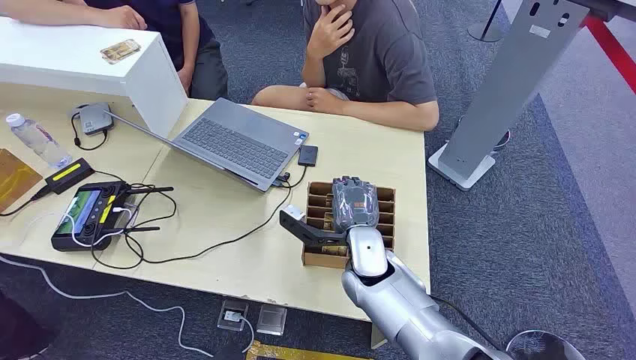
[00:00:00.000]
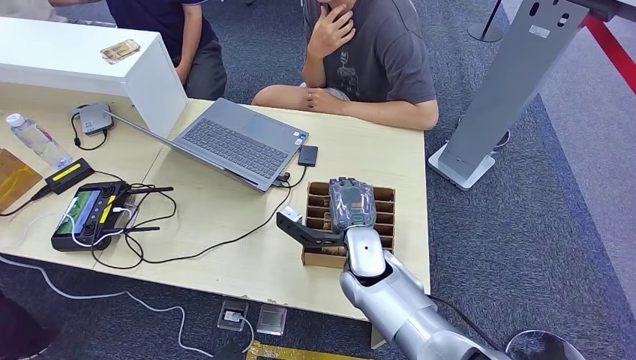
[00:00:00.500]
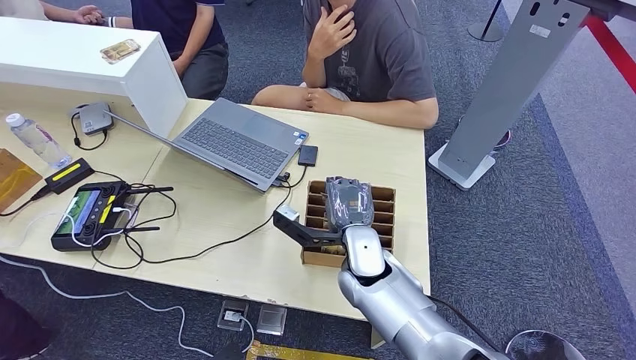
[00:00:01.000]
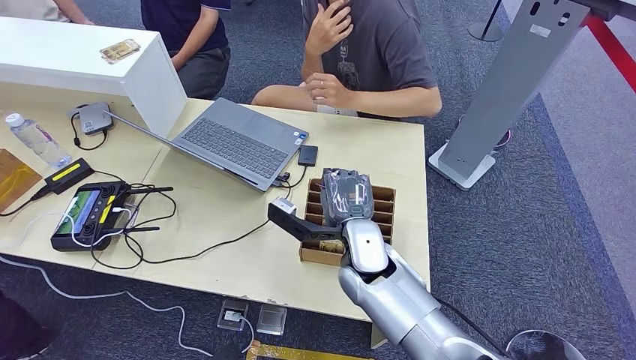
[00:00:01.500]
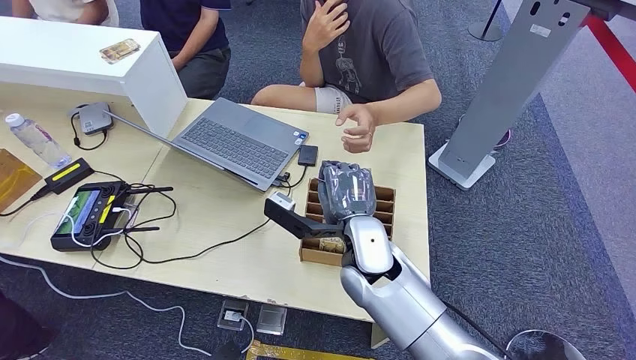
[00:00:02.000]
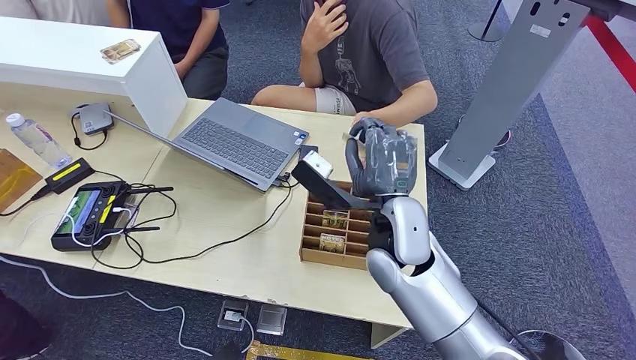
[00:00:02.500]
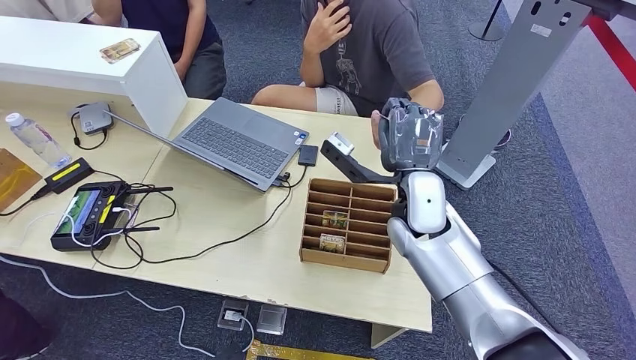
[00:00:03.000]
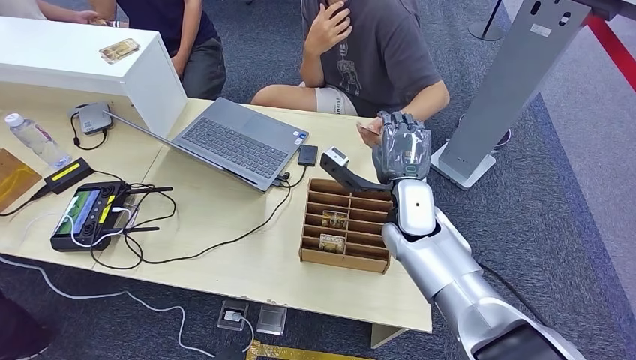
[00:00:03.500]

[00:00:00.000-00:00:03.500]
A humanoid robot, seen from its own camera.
Step, 00:00:00.000 to 00:00:01.000: Pick up the key card from the card box.
Step, 00:00:01.500 to 00:00:03.500: Hand the key card to the target.
00:00:02.000 to 00:00:03.500: The right hand shifts approximately 10 cm forward and to the right.
